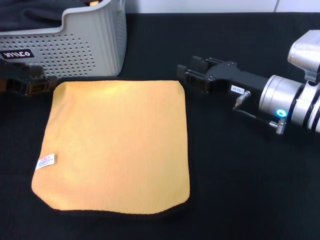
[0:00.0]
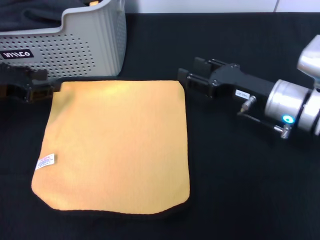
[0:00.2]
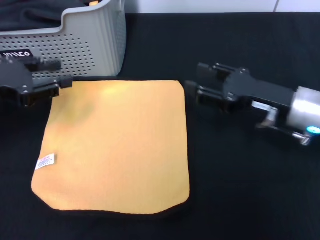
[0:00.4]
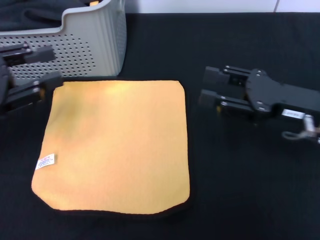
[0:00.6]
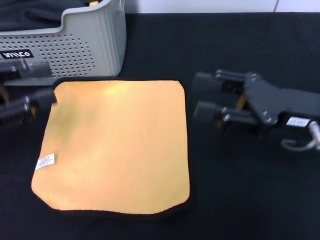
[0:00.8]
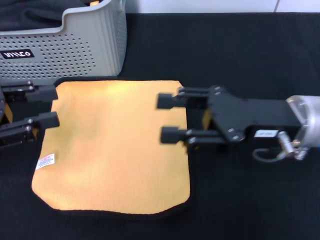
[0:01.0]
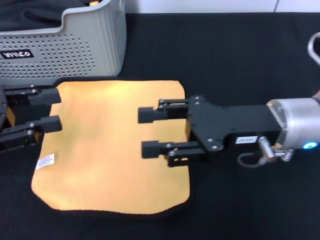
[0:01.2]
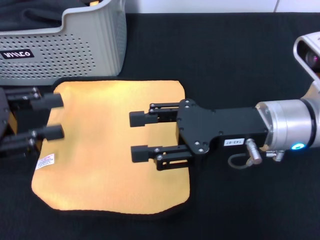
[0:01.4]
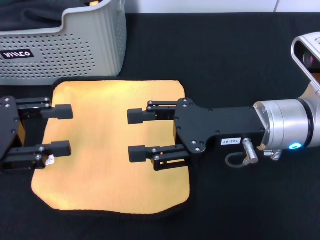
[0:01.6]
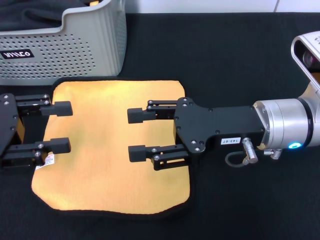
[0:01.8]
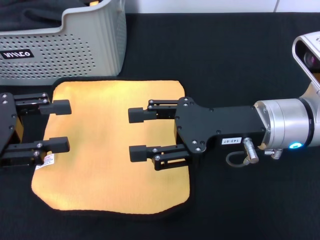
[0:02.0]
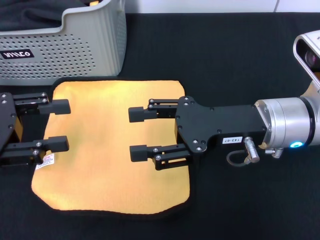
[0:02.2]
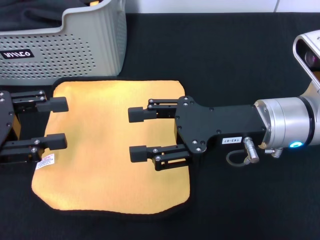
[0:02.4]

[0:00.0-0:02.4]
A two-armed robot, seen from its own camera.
Task of the whole recording: pick up the towel from the storage box and lay it flat on the black tablecloth.
0:00.0 to 0:01.2: The left gripper heads backward, covering roughly 10 cm, while the right gripper goes roughly 10 cm backward and upward, and opens.
0:01.2 to 0:02.4: The grippers stay close to where they were, moving slightly.
